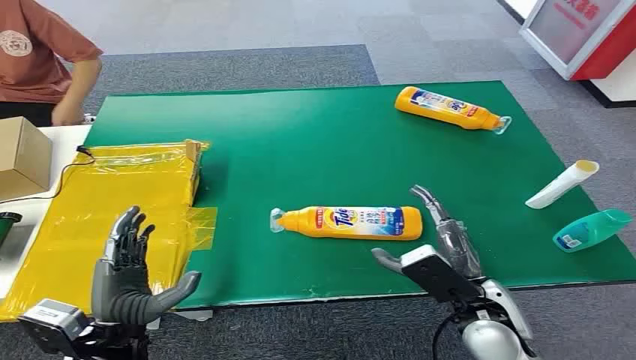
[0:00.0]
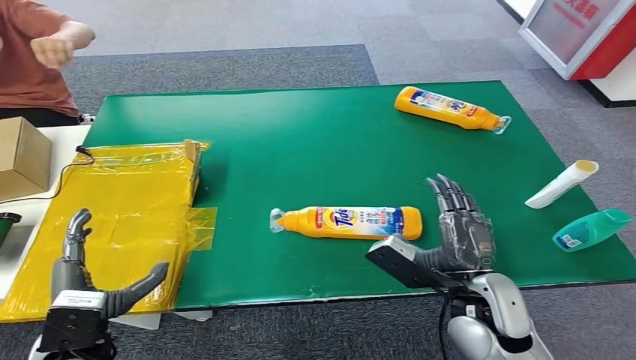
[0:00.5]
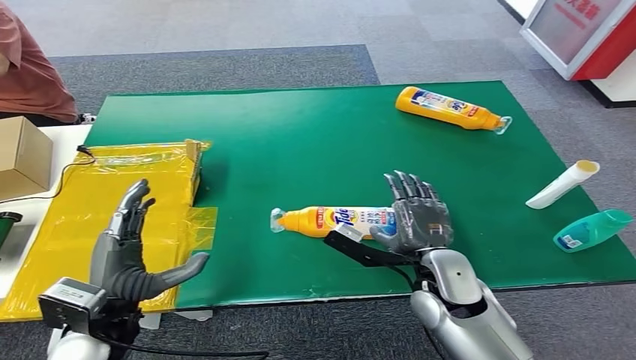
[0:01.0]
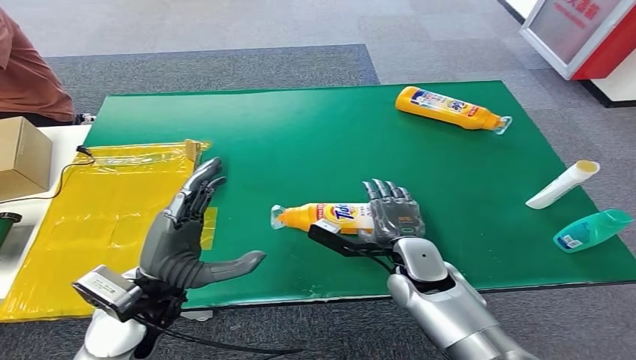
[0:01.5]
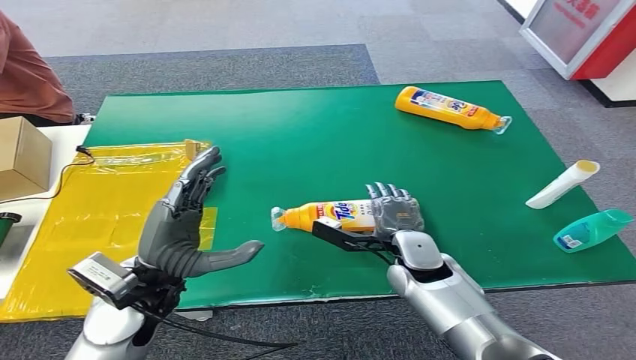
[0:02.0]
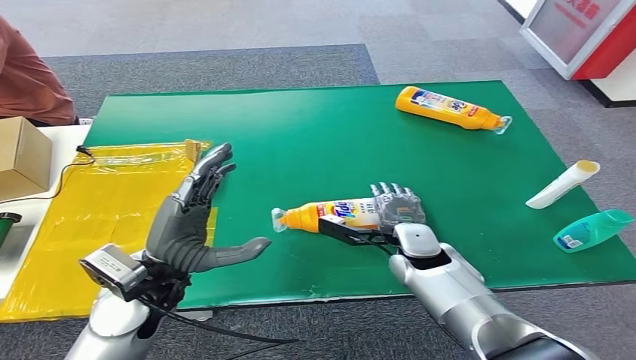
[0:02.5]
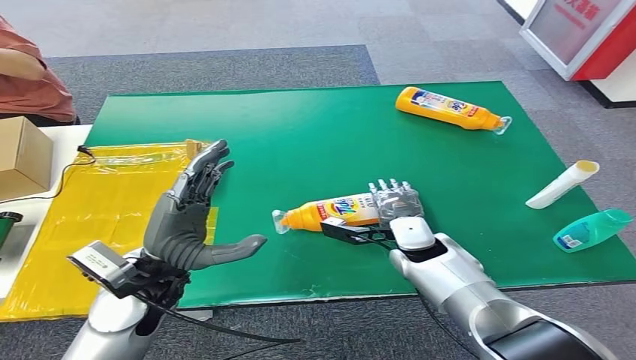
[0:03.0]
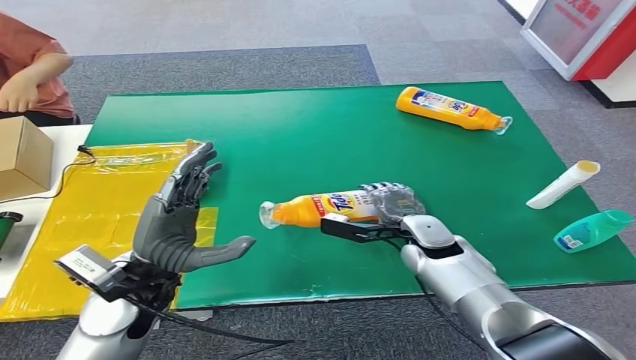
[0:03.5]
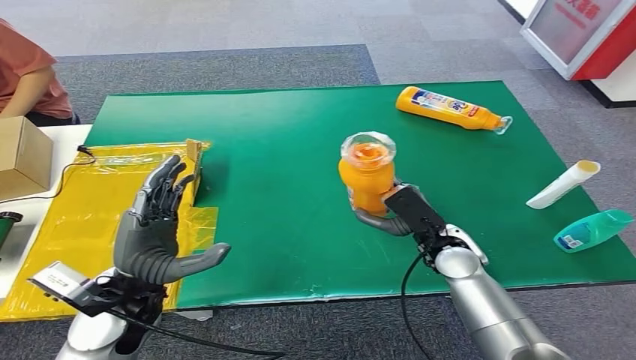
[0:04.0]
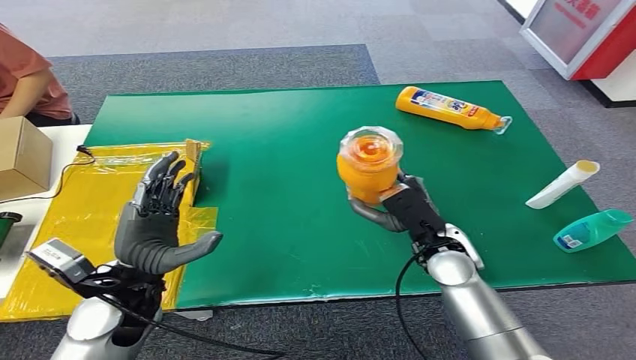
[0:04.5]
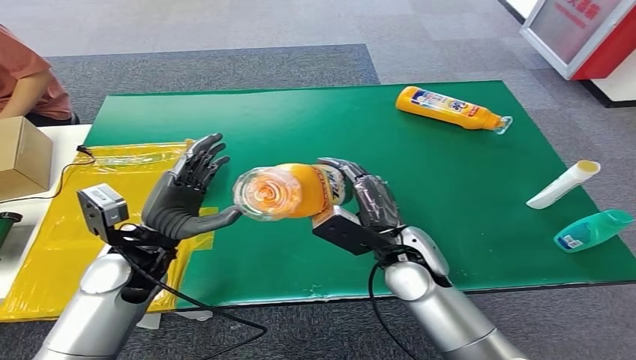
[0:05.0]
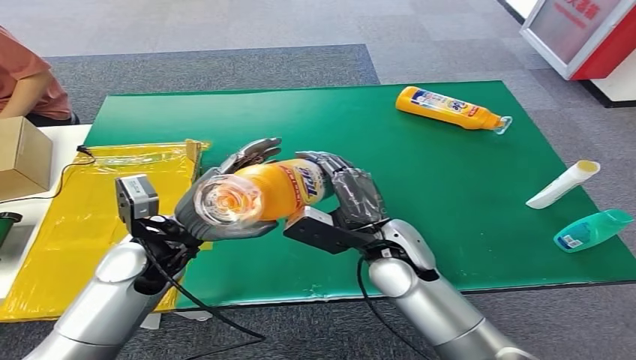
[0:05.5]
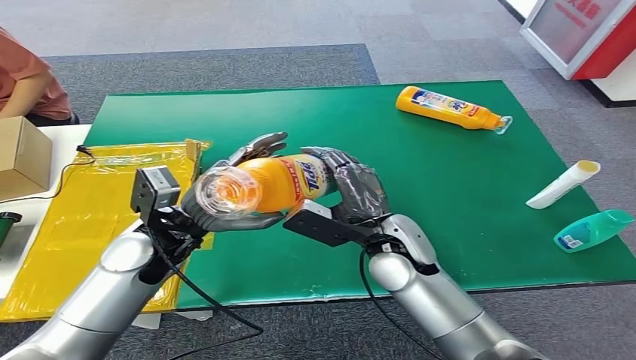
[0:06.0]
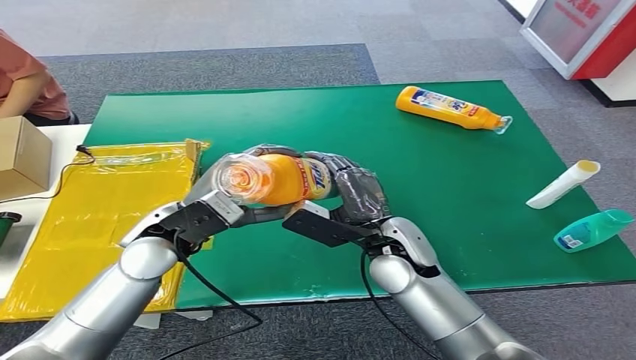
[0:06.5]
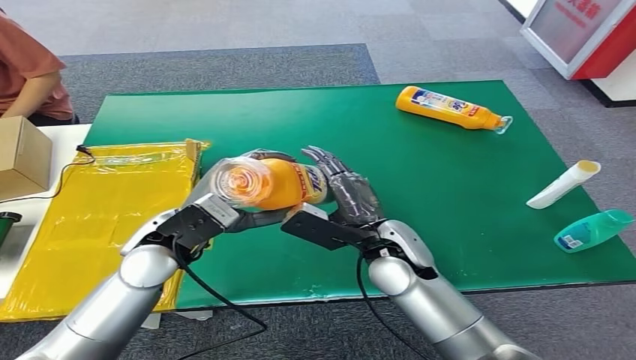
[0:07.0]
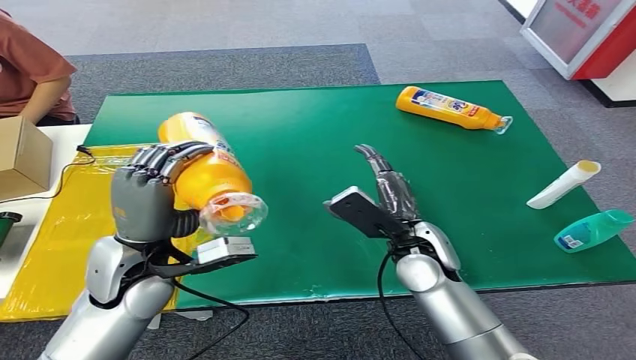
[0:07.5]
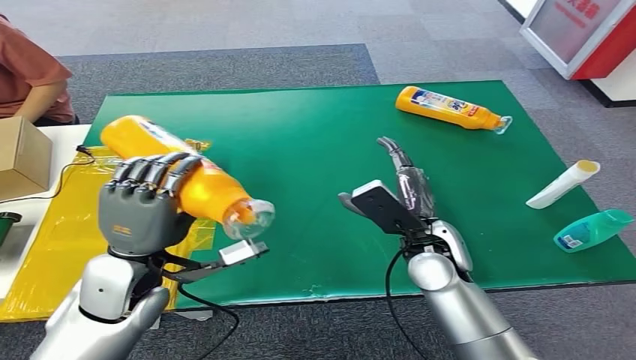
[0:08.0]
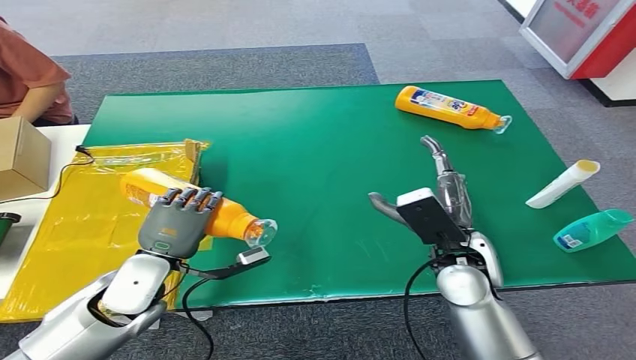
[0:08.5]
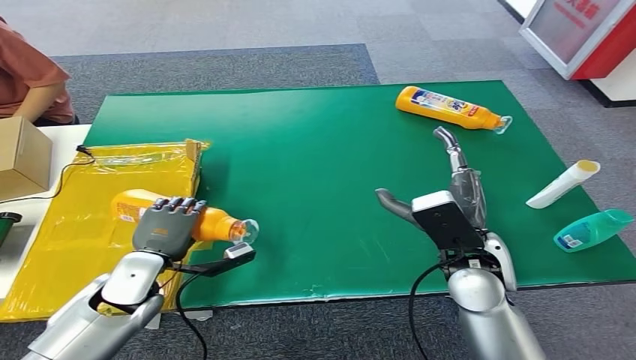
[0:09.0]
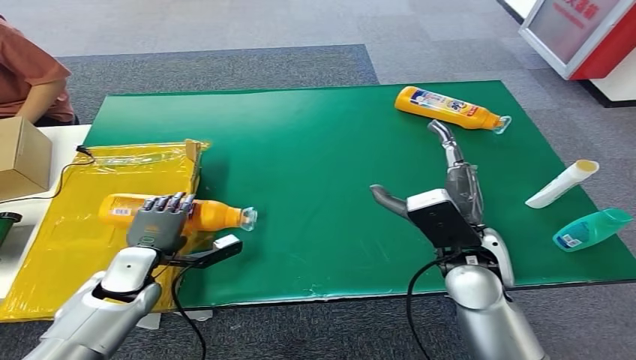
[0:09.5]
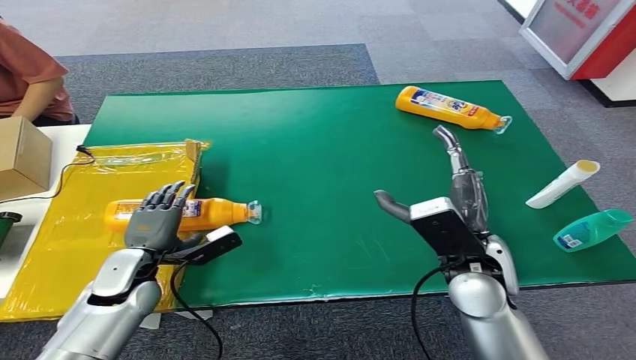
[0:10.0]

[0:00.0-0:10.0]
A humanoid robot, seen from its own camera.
Step, 0:00.0 to 0:04.0: Pick up the bottle from the table.
Step, 0:05.0 to 0:10.0: Turn the bottle to the front side.
0:02.0 to 0:04.0: The right hand is displaced to the right by approximately 5 cm.
0:08.0 to 0:10.0: The left hand travels downward and to the left by some 15 cm; the right hand shifts by roughly 5 cm.
